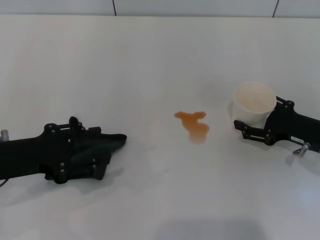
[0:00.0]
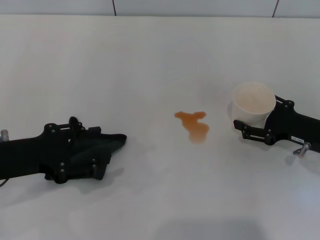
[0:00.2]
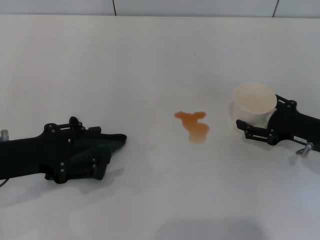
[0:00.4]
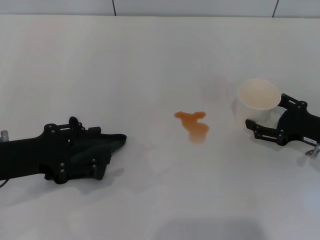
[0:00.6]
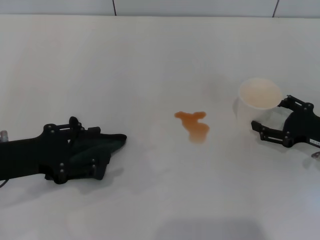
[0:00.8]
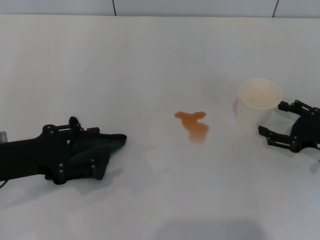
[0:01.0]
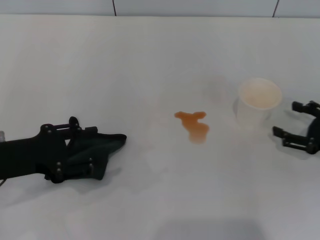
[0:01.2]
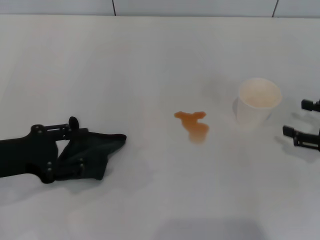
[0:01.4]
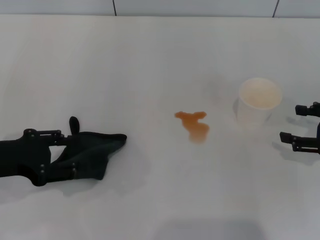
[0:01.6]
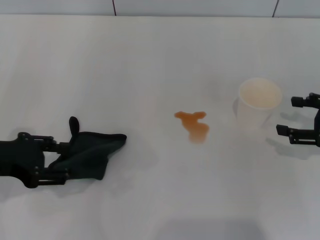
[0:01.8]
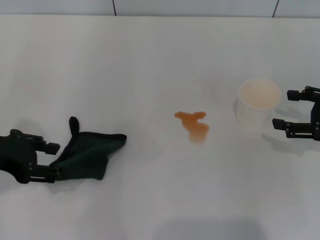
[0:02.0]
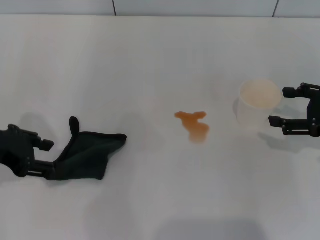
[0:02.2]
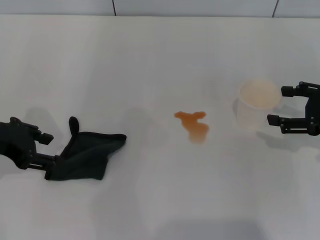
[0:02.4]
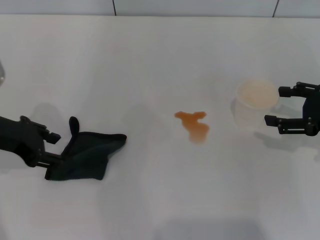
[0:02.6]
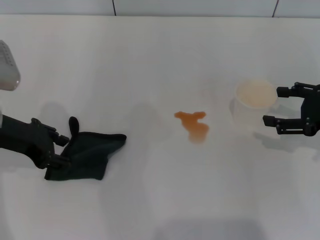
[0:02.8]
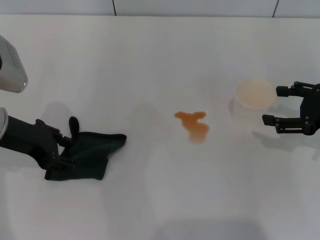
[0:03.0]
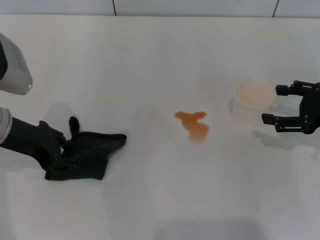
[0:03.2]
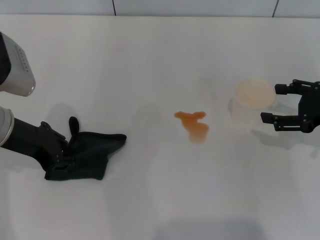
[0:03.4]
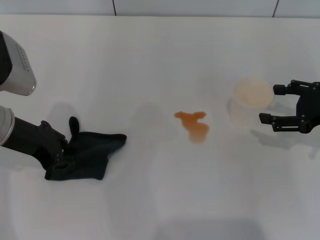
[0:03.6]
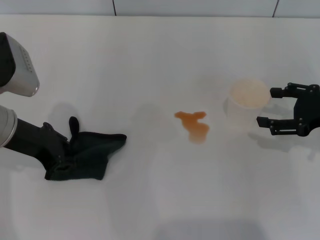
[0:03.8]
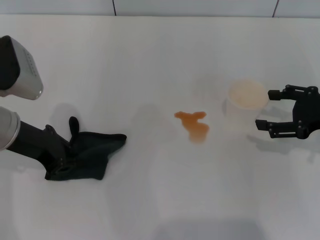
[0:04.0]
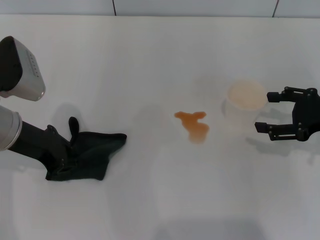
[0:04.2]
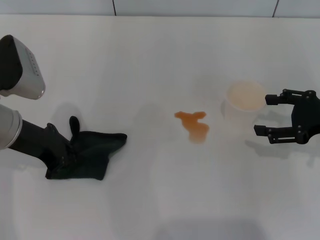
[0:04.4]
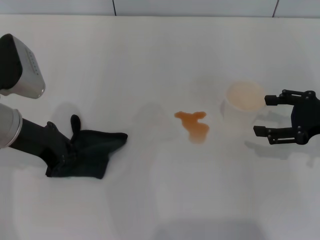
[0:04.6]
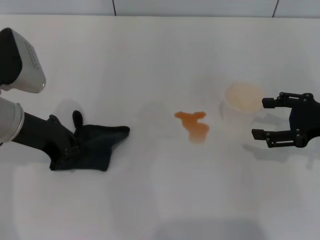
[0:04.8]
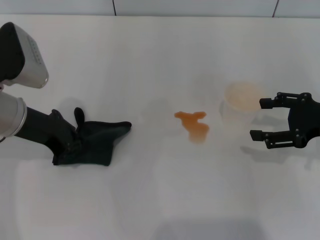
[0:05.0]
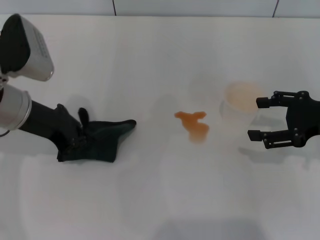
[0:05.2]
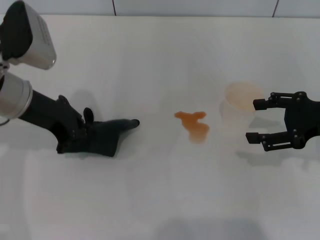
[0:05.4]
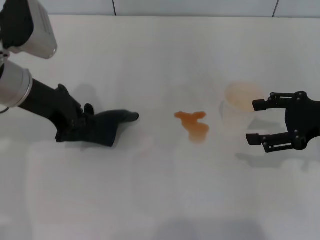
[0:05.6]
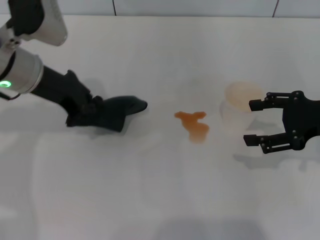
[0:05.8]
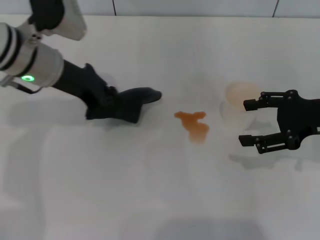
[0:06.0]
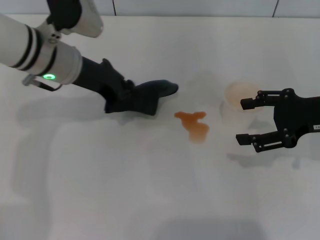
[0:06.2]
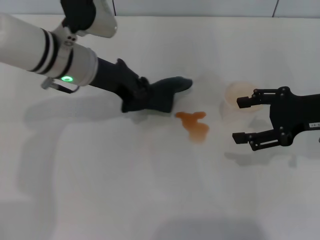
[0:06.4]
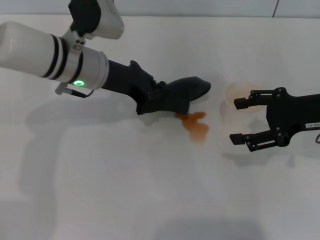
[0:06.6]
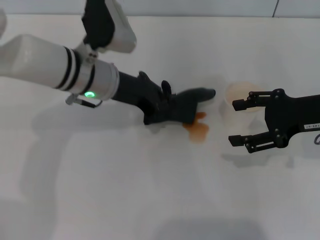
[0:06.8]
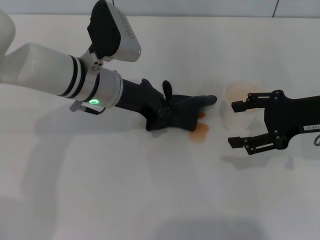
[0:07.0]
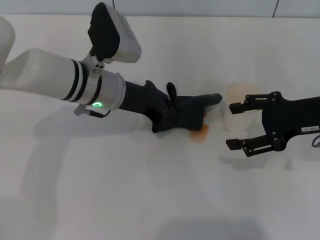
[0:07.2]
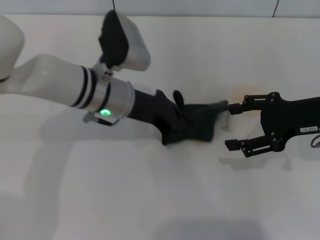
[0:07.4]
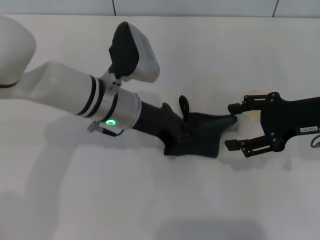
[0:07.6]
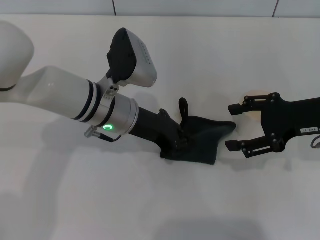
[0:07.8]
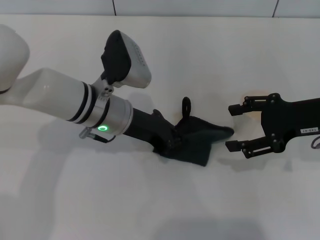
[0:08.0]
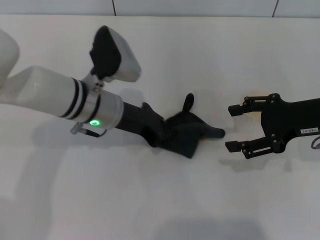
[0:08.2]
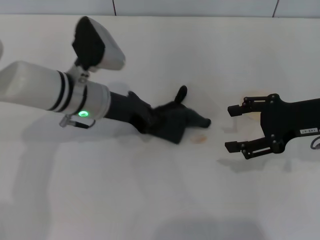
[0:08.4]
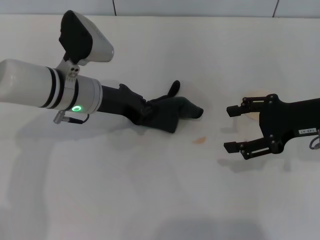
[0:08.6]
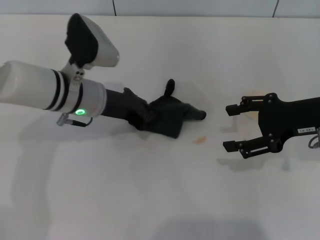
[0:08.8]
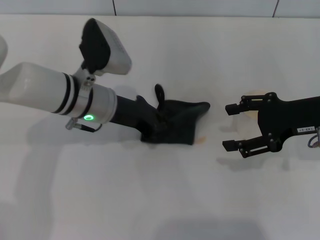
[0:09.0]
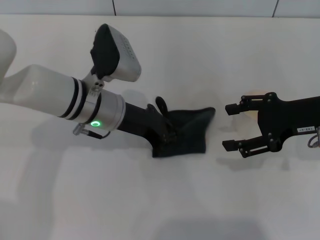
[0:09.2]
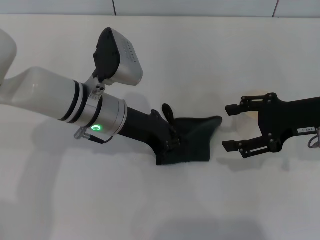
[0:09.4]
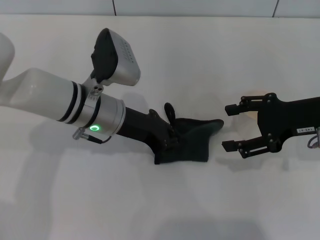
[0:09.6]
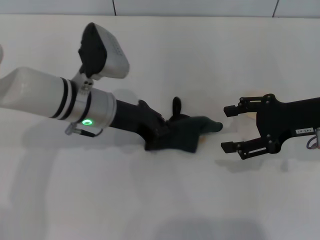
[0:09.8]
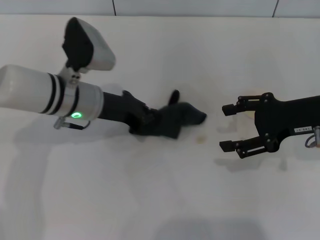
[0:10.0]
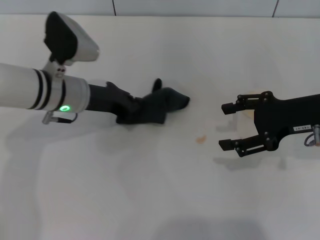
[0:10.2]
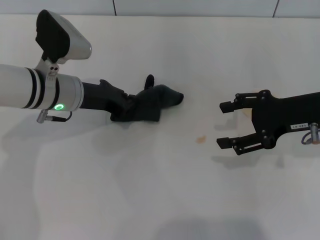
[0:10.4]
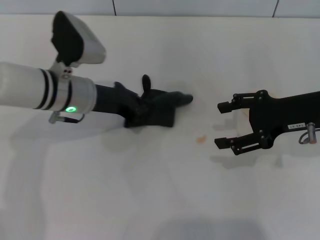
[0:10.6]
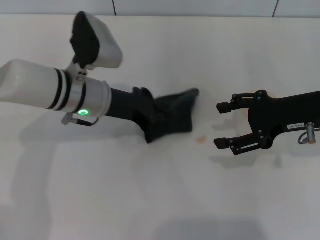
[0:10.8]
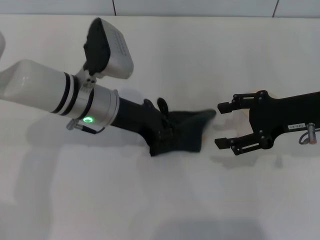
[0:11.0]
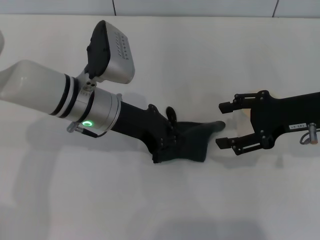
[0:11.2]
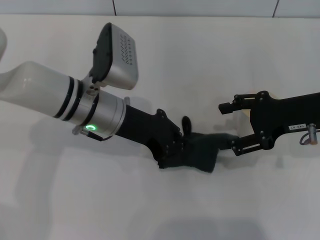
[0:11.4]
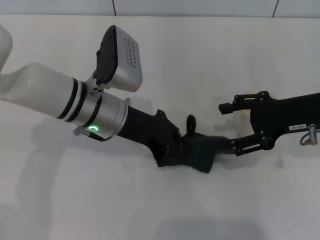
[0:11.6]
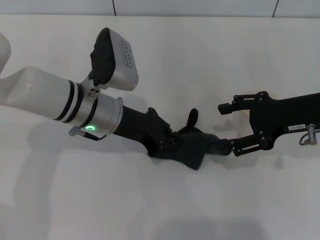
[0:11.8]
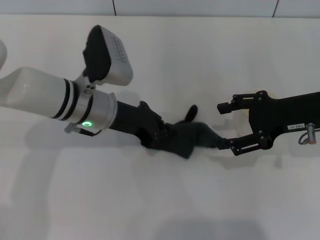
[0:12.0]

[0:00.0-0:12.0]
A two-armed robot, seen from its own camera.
Step, 0:01.2 to 0:04.2: Grasp the rag with the left gripper.
0:00.0 to 0:01.6: The right gripper goes some 10 cm to the right and upward, and opens its fingers.
0:01.6 to 0:03.0: The right gripper ends up roughly 5 cm from where it was. Meanwhile the left gripper travels forward by about 5 cm.
0:03.0 to 0:04.4: The left gripper closes up.
0:04.4 to 0:06.0: The left gripper moves forward and to the right, about 10 cm.
0:06.0 to 0:07.6: The left gripper travels to the right and downward by some 10 cm.
0:07.6 to 0:09.0: The grippers move only a little.
0:09.0 to 0:10.4: The left gripper heads to the left, covering approximately 5 cm.
0:10.4 to 0:12.0: The left gripper moves to the right, some 5 cm.

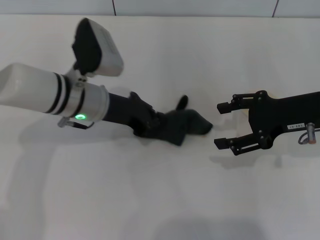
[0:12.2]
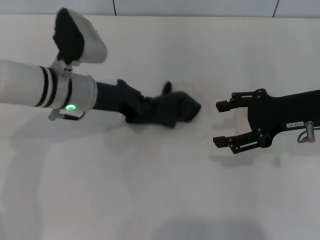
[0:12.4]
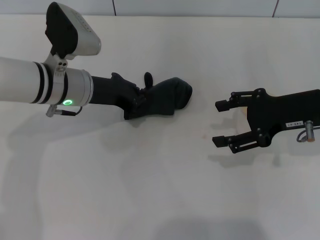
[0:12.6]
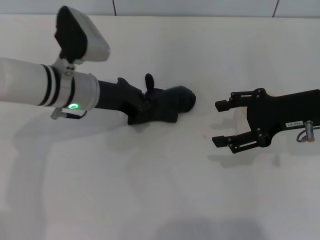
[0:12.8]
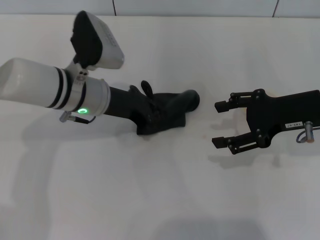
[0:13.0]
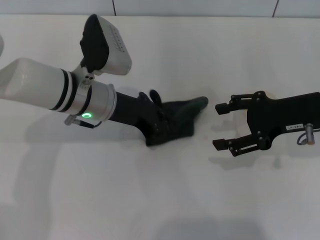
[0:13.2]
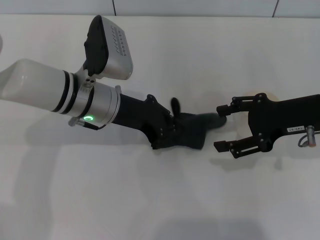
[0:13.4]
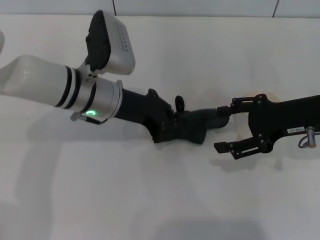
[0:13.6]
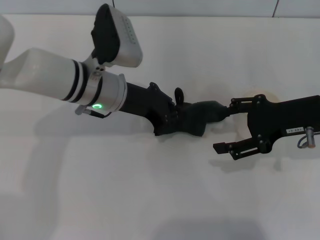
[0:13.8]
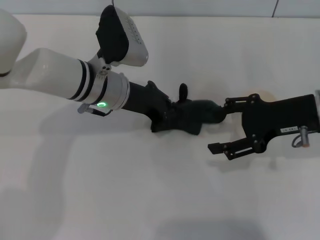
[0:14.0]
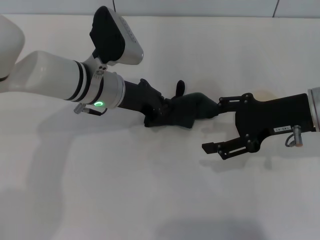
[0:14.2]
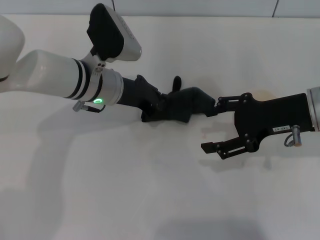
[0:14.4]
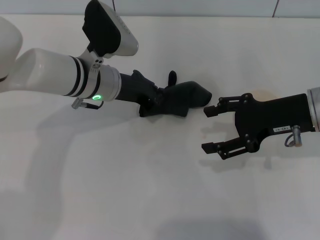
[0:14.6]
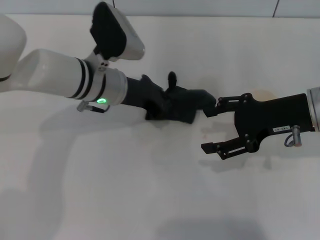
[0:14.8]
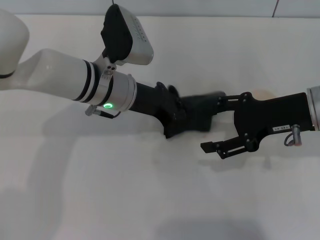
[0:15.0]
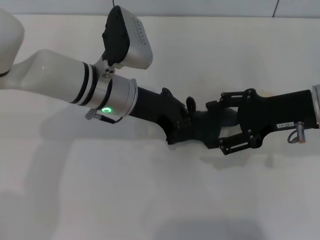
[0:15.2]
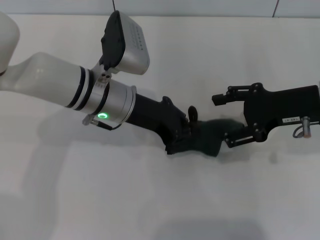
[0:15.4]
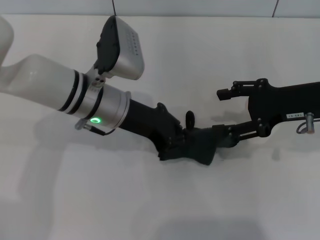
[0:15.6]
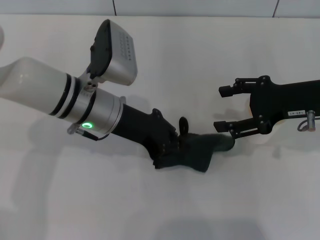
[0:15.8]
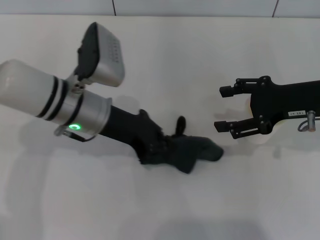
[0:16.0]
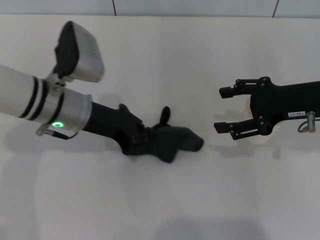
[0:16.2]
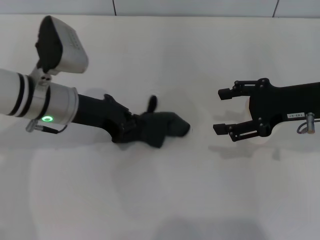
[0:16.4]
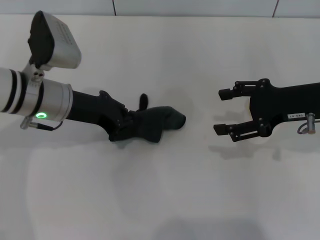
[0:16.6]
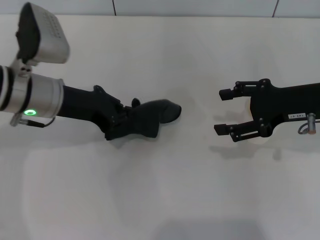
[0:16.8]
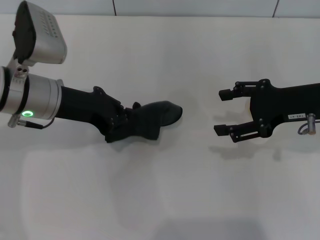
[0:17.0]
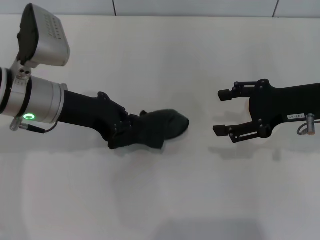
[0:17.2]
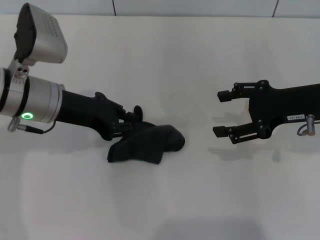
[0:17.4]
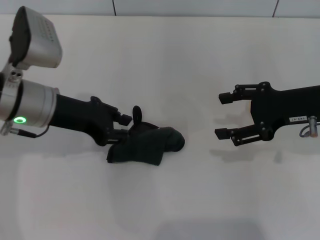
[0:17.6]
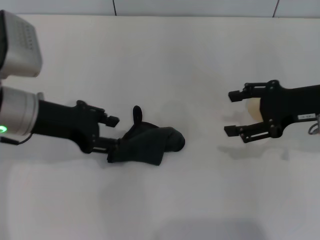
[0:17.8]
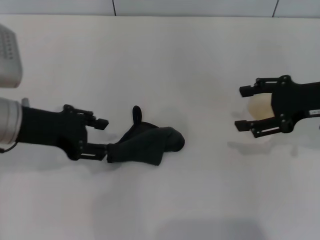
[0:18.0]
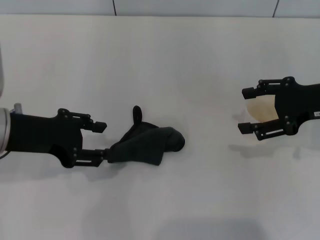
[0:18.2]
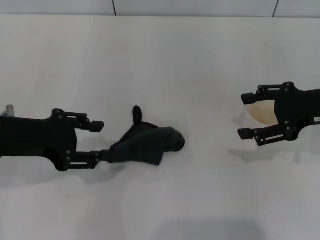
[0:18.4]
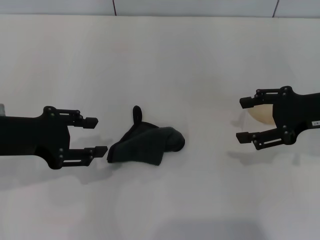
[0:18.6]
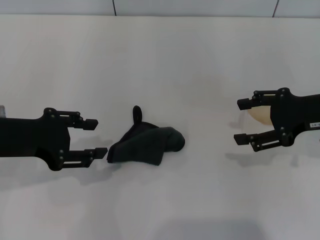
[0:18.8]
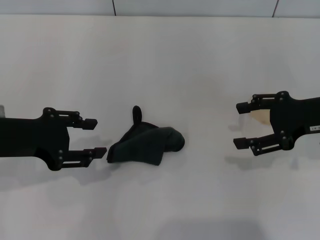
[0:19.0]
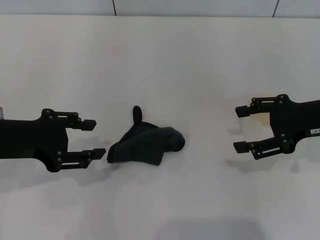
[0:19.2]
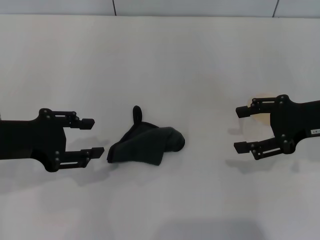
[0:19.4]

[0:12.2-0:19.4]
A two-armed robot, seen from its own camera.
Step, 0:12.2 to 0:15.6: Wipe the stains off the table with the left gripper.
Step, 0:15.8 to 0:17.8: Place the rag on the table with the left gripper.
0:12.2 to 0:15.0: The grippers move only a little.
0:15.0 to 0:16.6: The left gripper shifts about 10 cm to the left.
0:16.6 to 0:18.0: The left gripper shifts some 5 cm backward, and opens up.
0:18.0 to 0:19.4: The left gripper shifts by about 5 cm.
